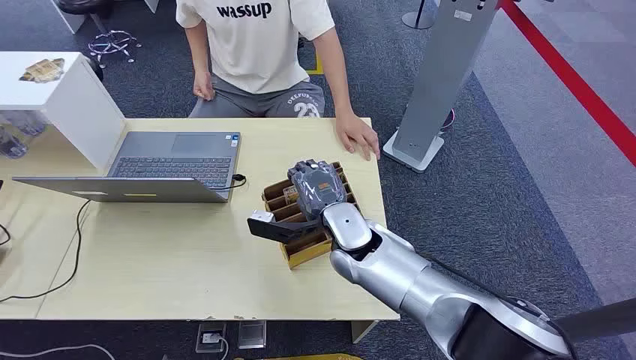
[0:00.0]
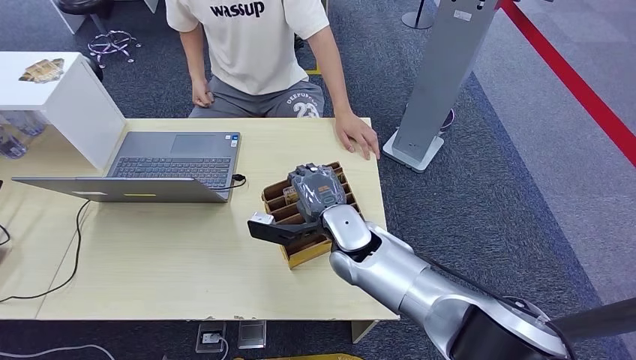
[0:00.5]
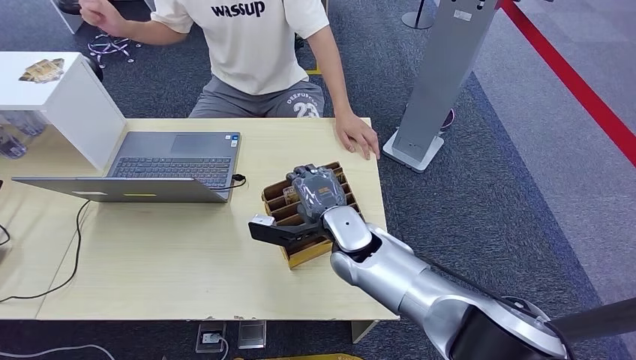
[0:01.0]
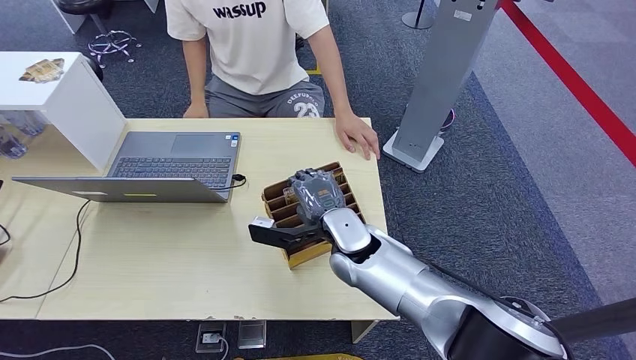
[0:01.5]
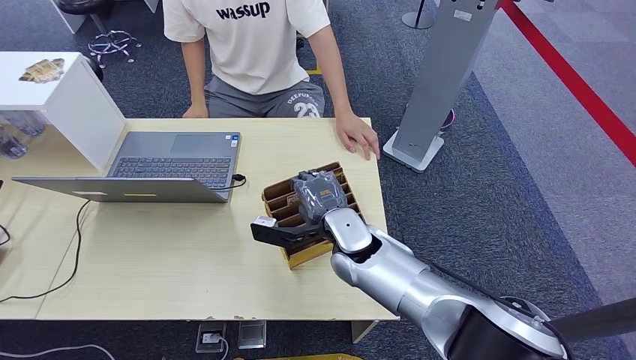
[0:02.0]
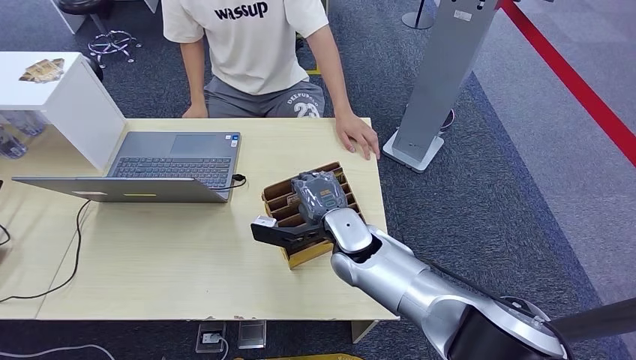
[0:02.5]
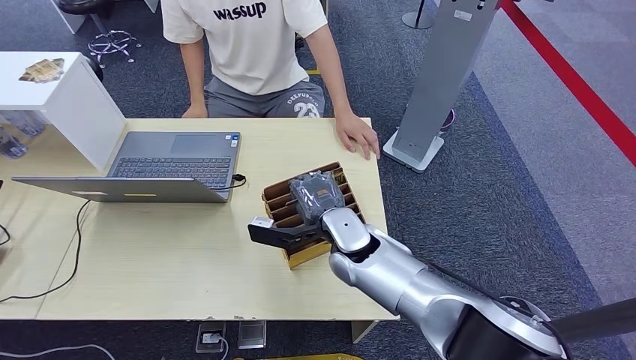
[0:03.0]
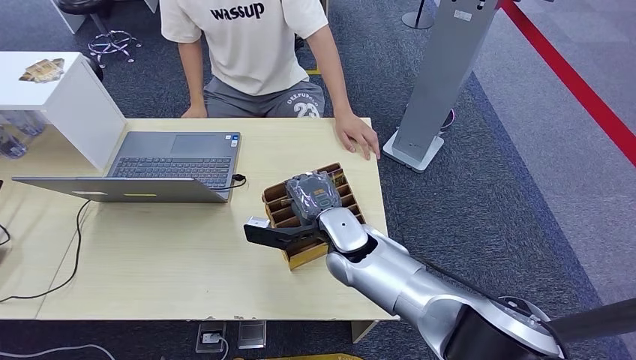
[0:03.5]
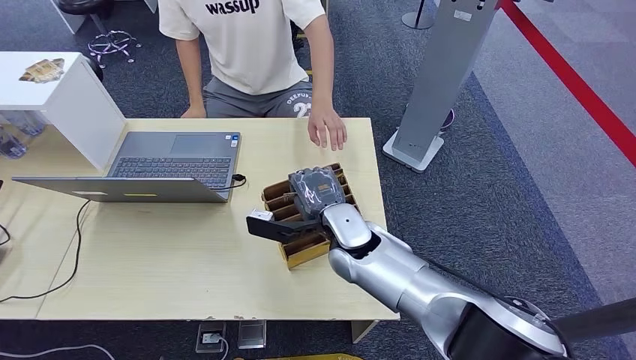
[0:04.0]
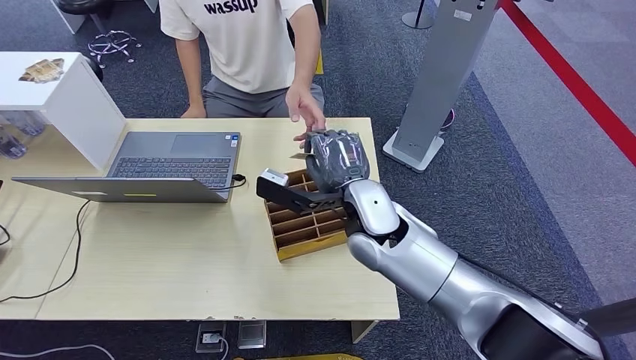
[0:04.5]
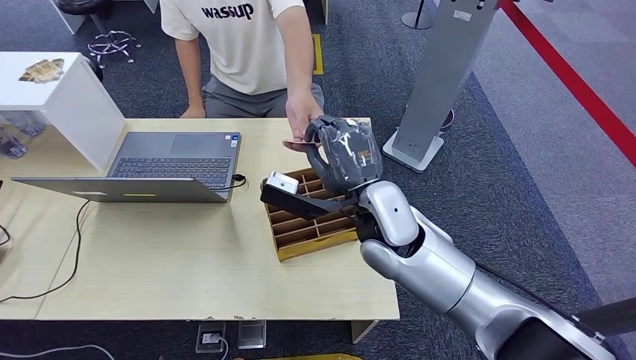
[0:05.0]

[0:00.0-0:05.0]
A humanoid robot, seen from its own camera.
Step, 0:00.0 to 0:04.0: Pick up the room card from the card holder.
Step, 0:04.5 to 0:05.0: Hand the room card to the target.
0:02.5 to 0:05.0: The right hand moves upward, about 10 cm.
